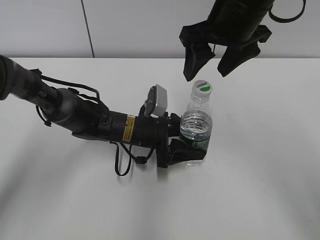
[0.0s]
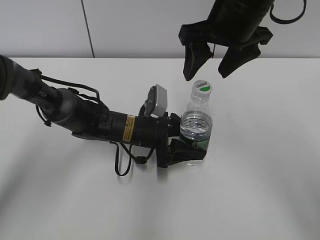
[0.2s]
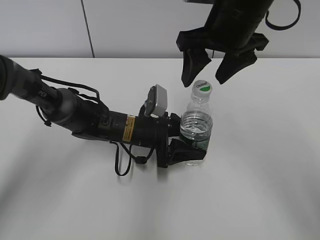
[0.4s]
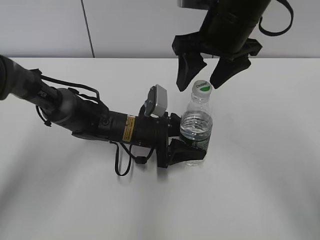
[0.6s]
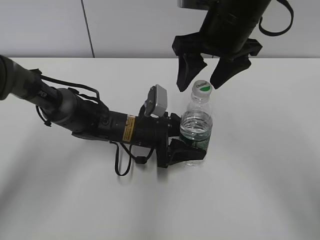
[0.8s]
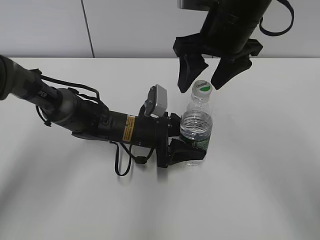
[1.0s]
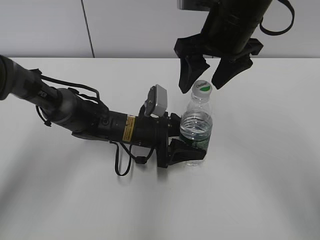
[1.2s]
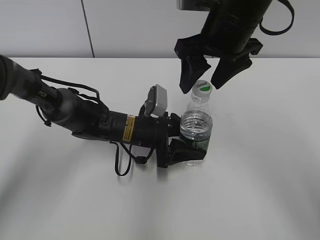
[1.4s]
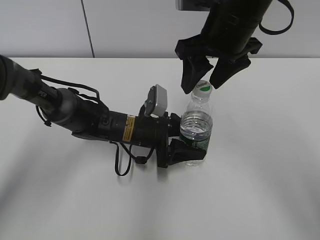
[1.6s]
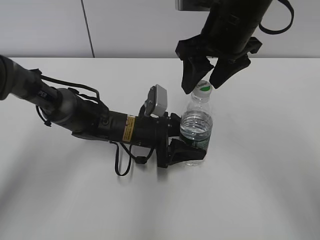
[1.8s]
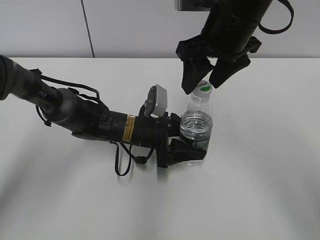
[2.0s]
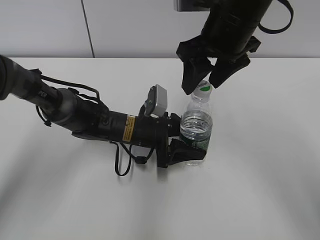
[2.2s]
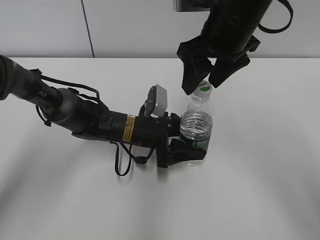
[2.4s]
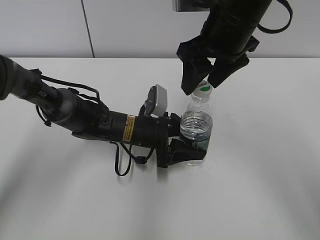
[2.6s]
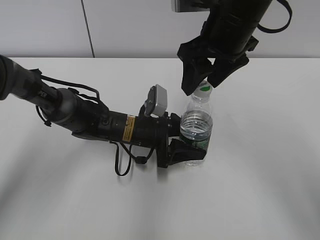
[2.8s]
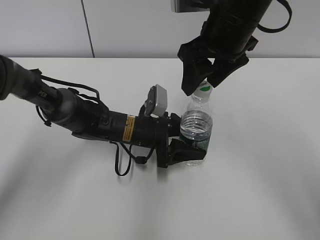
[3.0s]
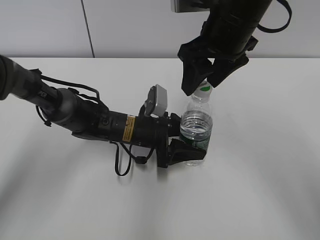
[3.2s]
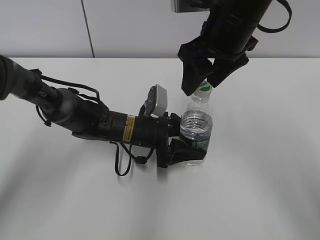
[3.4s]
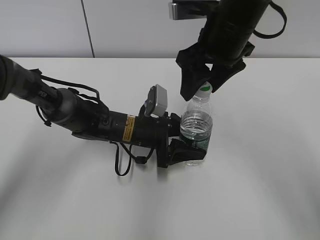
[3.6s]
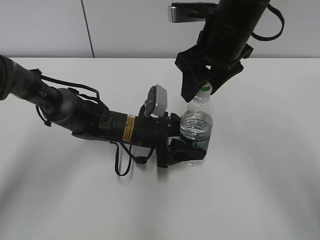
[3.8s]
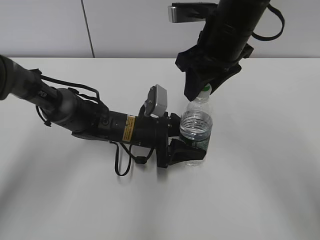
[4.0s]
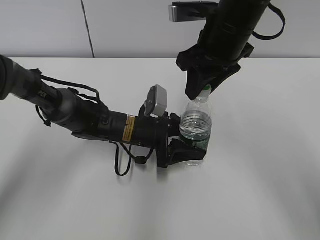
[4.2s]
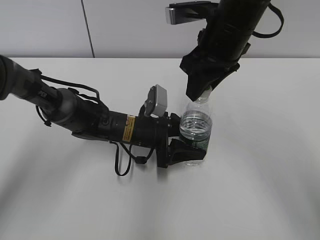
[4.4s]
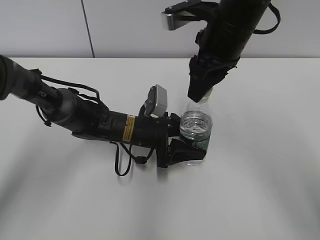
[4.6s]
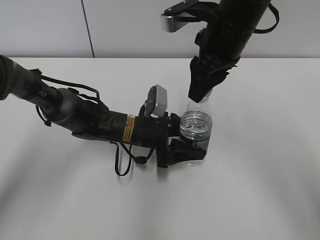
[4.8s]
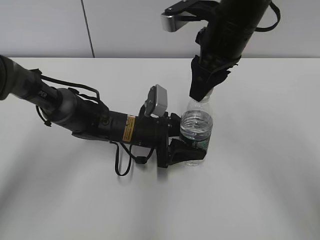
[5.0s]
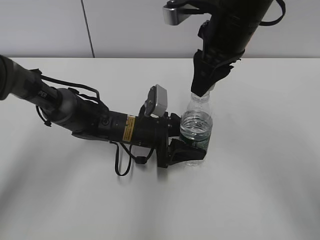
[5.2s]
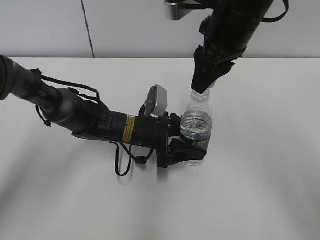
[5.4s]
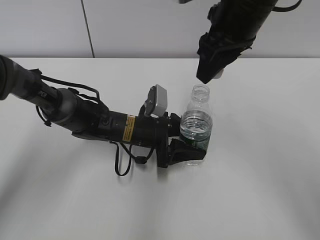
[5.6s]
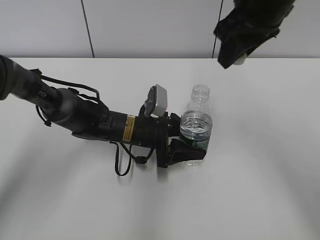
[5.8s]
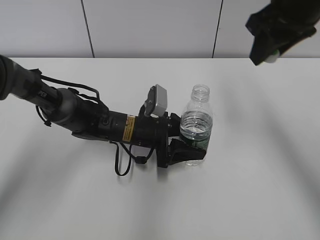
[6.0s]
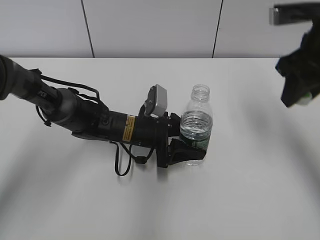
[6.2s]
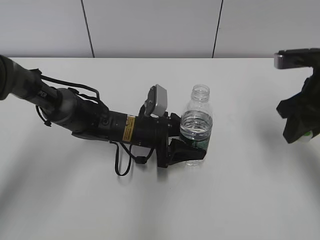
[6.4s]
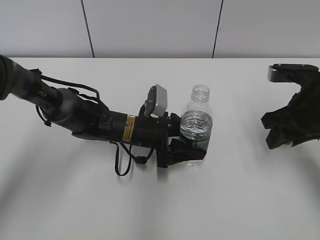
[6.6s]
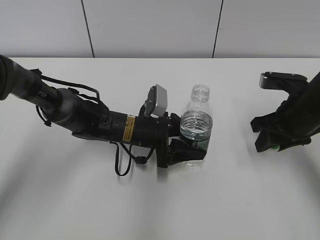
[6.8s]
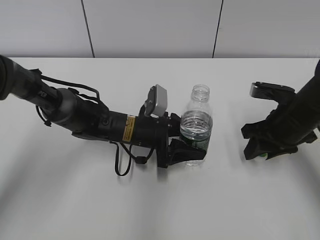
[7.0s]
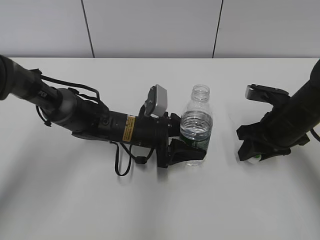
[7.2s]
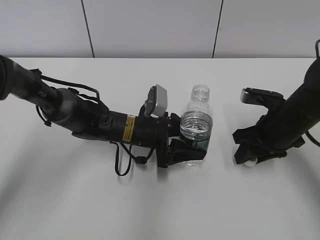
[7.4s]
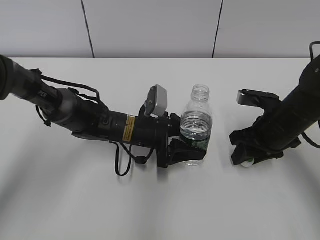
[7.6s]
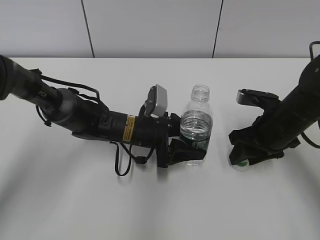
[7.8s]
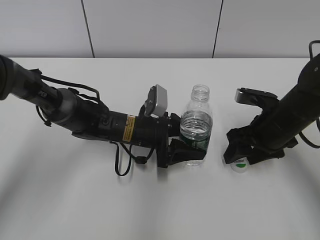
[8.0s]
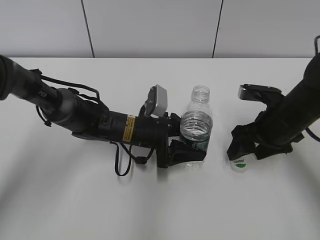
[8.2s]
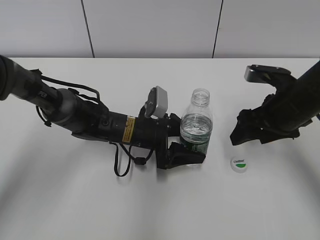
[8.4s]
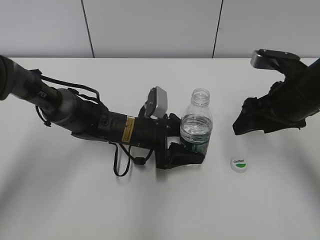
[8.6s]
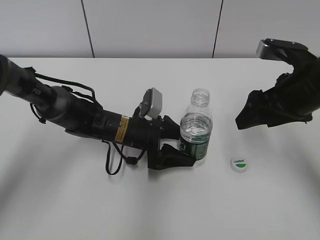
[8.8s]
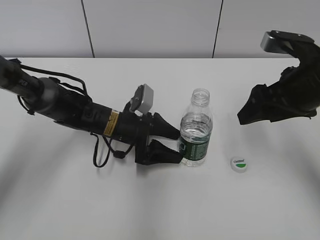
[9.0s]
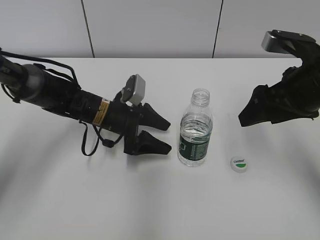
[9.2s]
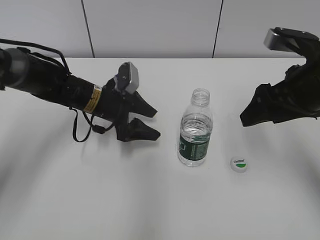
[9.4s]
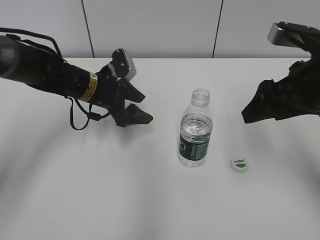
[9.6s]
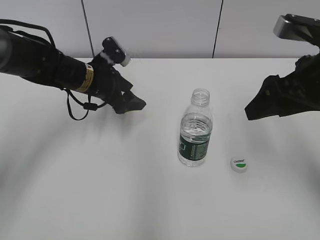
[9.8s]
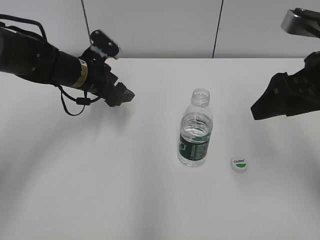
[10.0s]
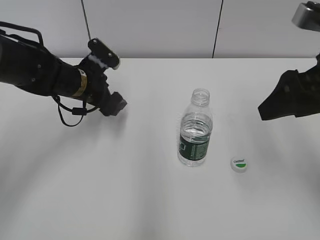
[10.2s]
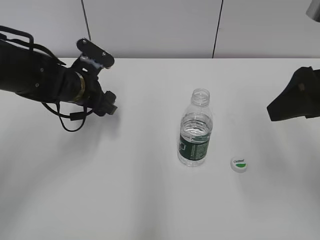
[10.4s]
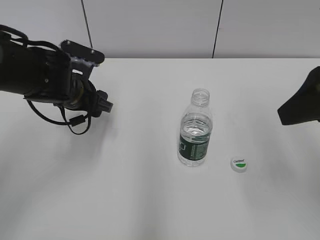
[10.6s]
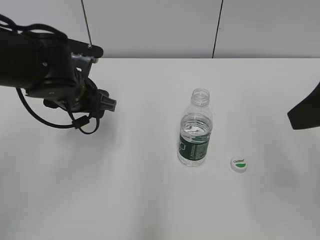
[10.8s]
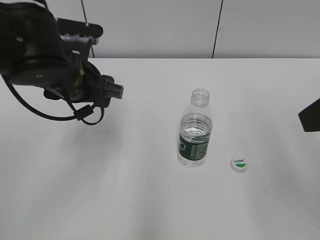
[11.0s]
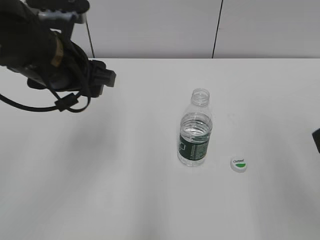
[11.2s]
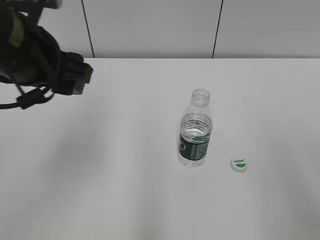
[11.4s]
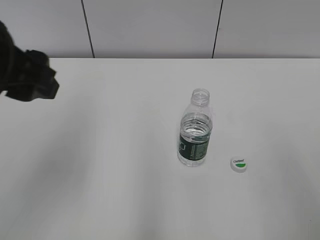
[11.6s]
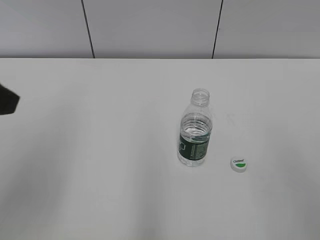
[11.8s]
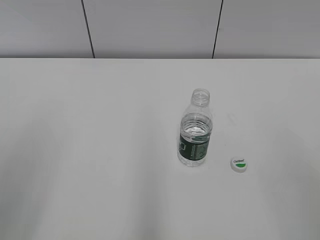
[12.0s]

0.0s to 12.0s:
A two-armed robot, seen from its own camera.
Step, 0.0s to 5.2s: Twist the bottle cap with the right hand.
Step, 5.4s to 7.8s: Place the bottle cap on the table with the right hand.
Step, 8.2s to 9.0s: Place the C'estbon with the left hand.
0.0s to 3.0s: There are only small adjustments of the grippers.
3.0s to 4.4s: The right gripper closes.
4.4s to 6.0s: The right gripper is displaced to the right and upward by approximately 10 cm.
6.0s to 7.6s: The right gripper shifts some 20 cm downward.
7.6s to 9.0s: The right gripper is displaced upward by about 10 cm, and opens; the left gripper opens up.
9.0s to 10.4s: The right gripper travels upward and backward by some 10 cm, while the left gripper goes about 10 cm upward and to the left.
10.4s to 12.0s: The left gripper is displaced backward and upward by approximately 30 cm, and closes its fingers. The right gripper travels backward by roughly 20 cm.

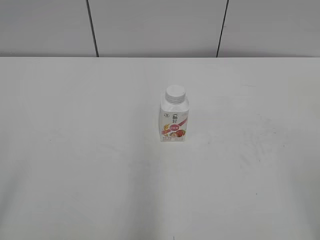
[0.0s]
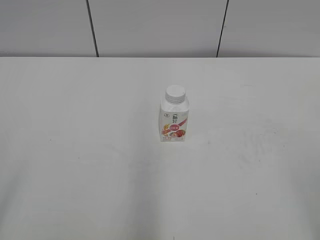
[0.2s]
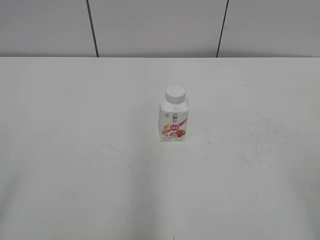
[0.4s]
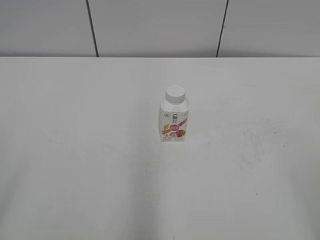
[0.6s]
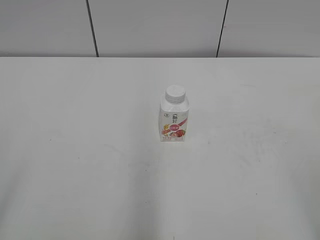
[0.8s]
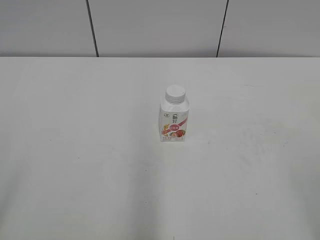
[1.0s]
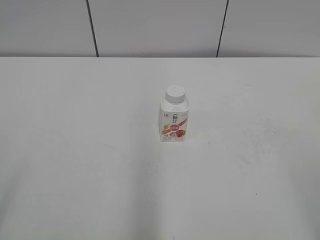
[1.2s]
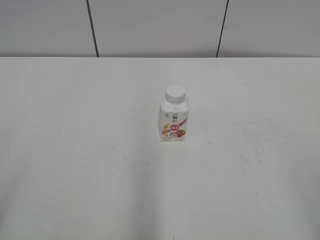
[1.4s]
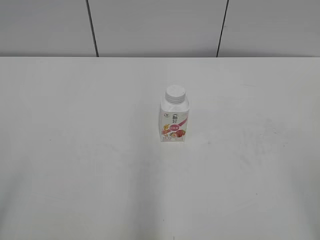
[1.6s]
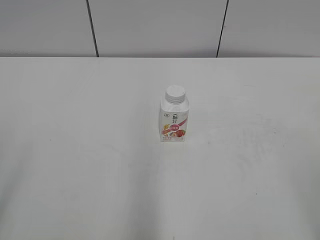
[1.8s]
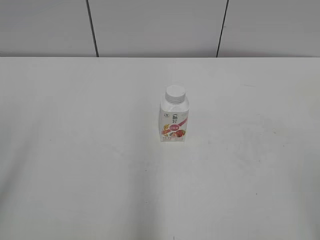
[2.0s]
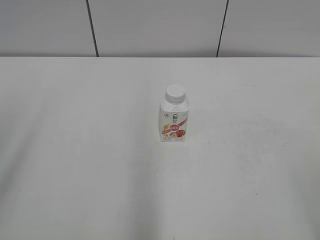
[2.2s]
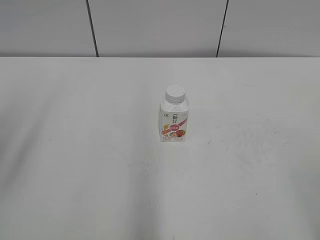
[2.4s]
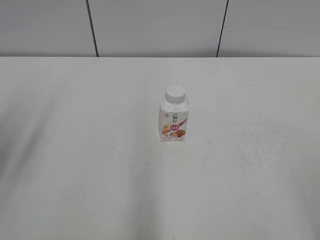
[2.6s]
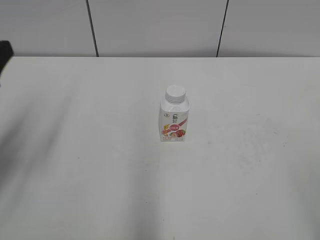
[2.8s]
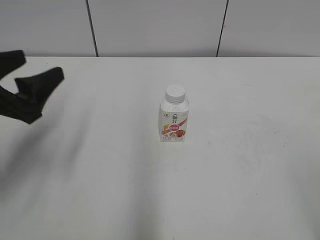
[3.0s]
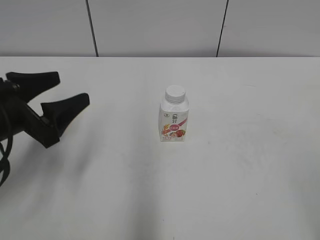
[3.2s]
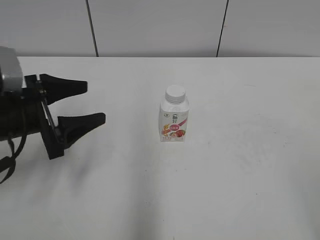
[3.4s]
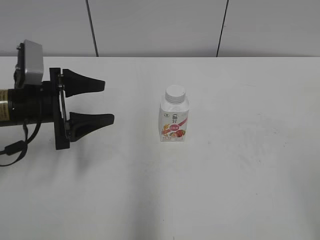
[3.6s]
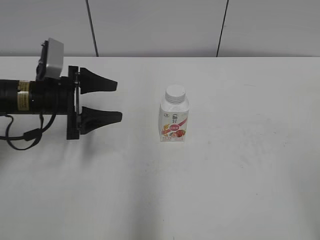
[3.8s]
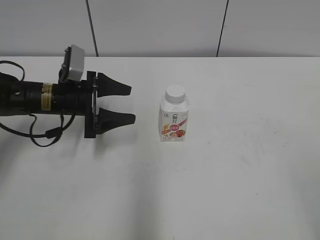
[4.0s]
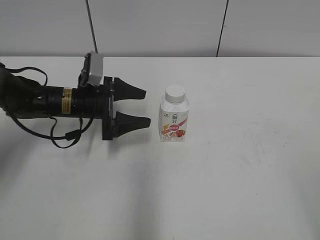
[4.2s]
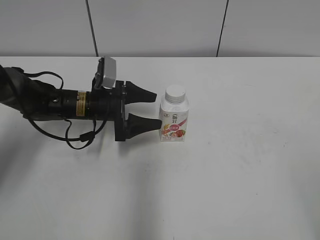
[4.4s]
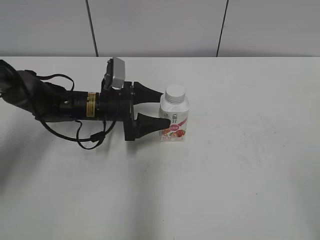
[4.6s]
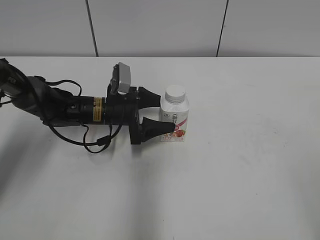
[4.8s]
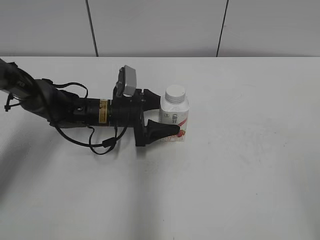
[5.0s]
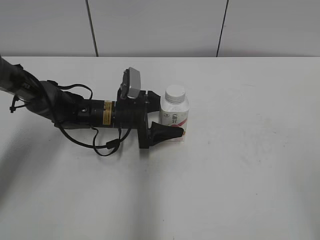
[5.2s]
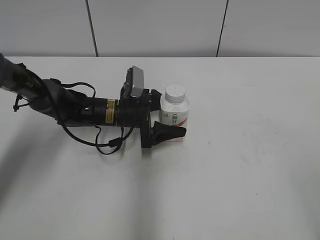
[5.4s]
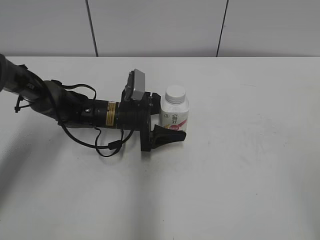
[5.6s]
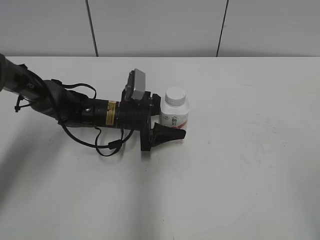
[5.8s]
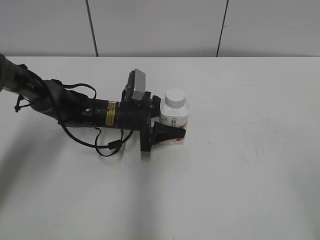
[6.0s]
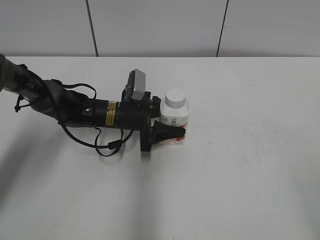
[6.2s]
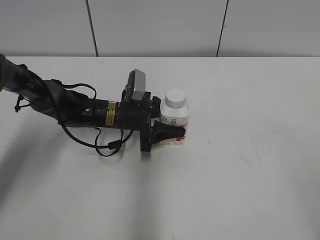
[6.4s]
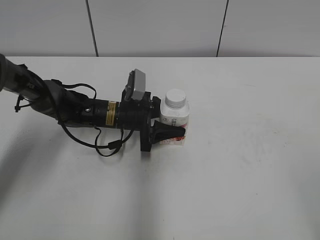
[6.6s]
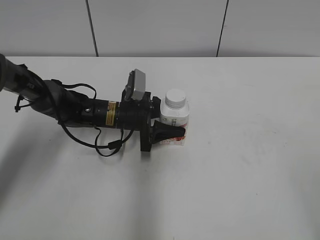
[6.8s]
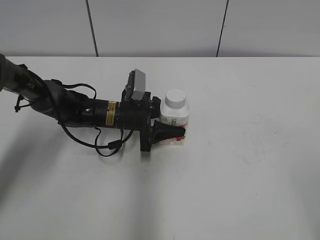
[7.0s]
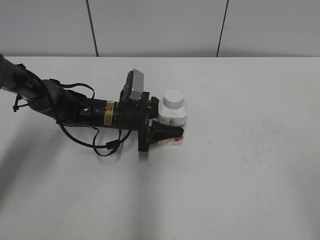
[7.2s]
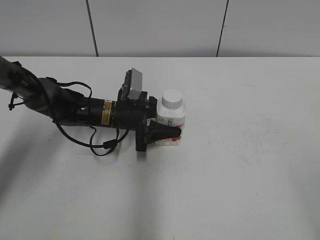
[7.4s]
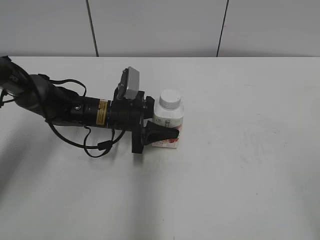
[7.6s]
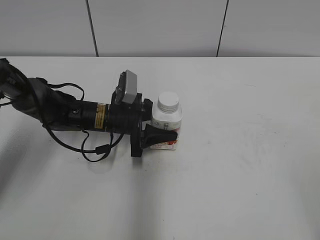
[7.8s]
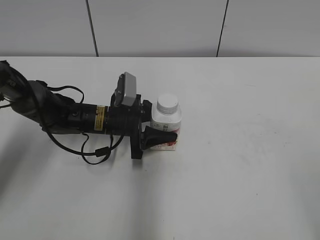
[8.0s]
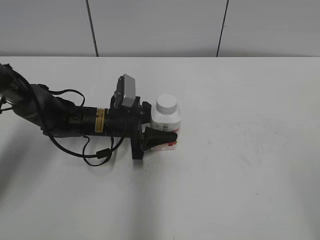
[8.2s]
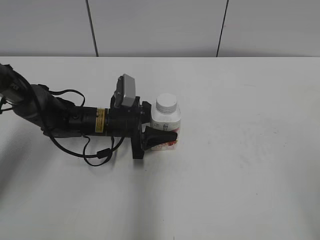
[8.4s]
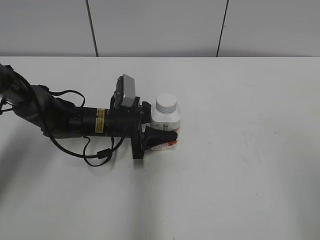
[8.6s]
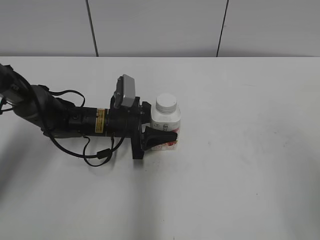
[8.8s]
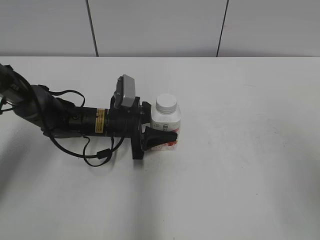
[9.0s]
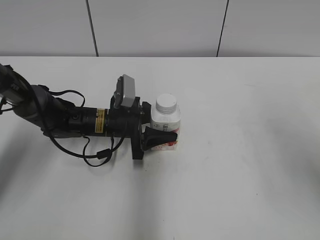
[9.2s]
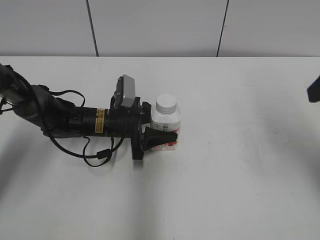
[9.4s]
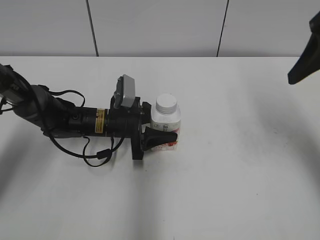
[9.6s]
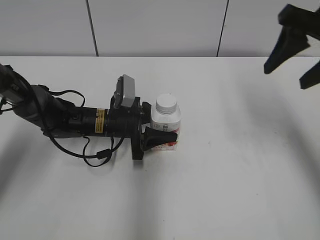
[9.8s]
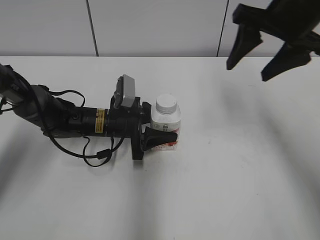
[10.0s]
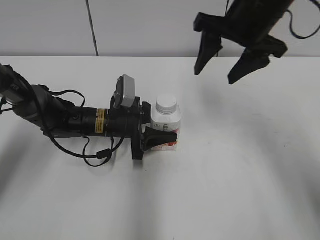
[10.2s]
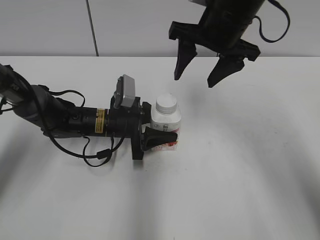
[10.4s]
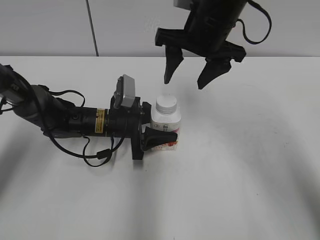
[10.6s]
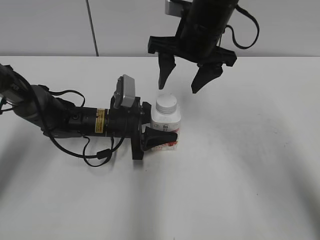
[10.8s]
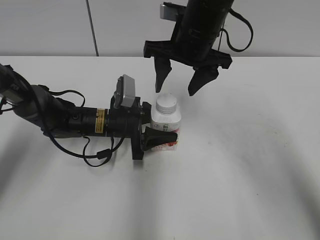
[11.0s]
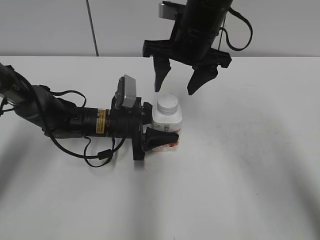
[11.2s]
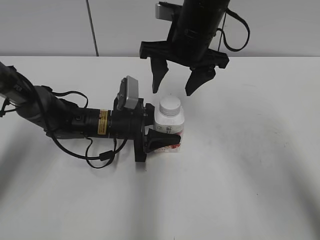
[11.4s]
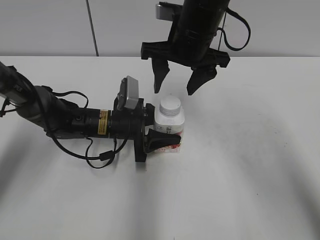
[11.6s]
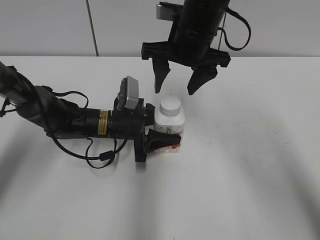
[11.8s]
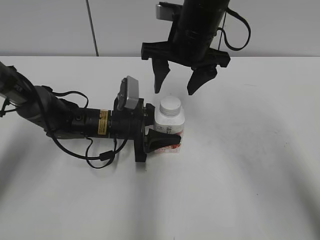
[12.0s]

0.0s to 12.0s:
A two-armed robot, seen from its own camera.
Step, 0.0s to 6.6s: Grab the Yili Changqing with the left hand.
Step, 6.8s to 8.8s: Move the Yili Changqing from right to left.
1.6s to 3.0s: The left gripper travels forward by roughly 20 cm.
3.0s to 4.4s: The left gripper goes approximately 25 cm forward, downward and to the right.
4.4s to 6.0s: The left gripper moves to the right, some 5 cm, and closes.
6.0s to 7.6s: The grippers move only a little.
7.6s to 9.0s: The right gripper is displaced forward by about 10 cm.
9.0s to 10.4s: The right gripper is displaced forward and to the left by roughly 30 cm.
10.4s to 12.0s: The right gripper changes place by about 5 cm.
